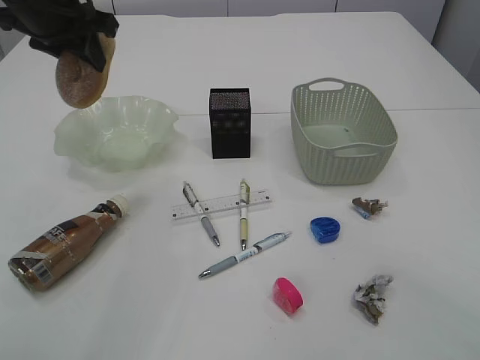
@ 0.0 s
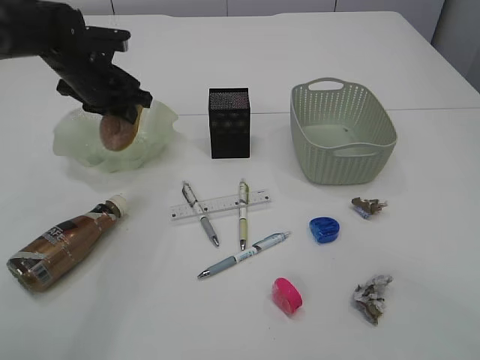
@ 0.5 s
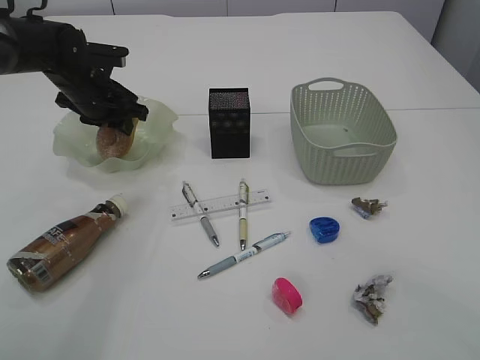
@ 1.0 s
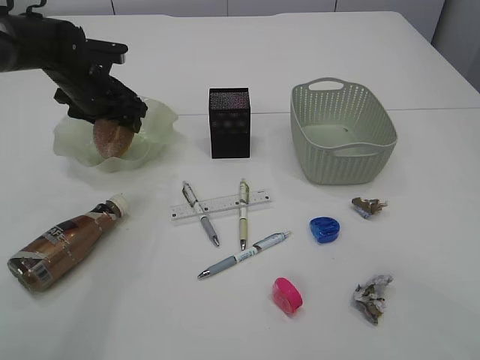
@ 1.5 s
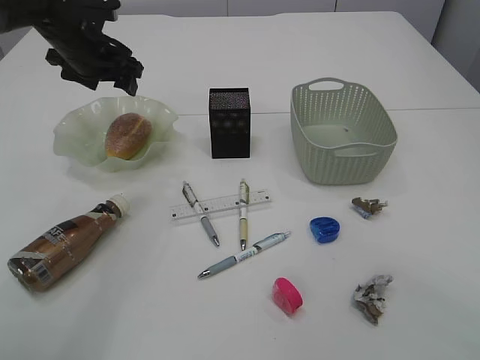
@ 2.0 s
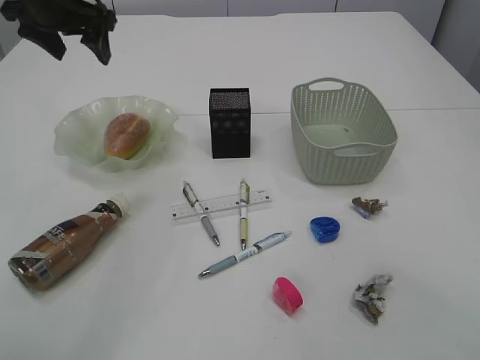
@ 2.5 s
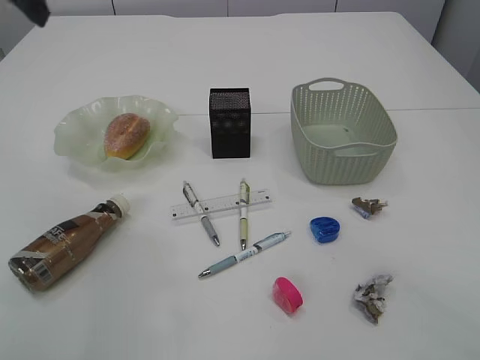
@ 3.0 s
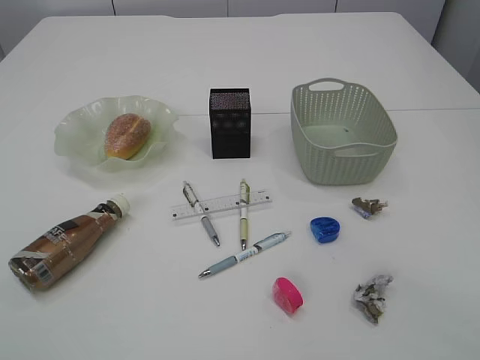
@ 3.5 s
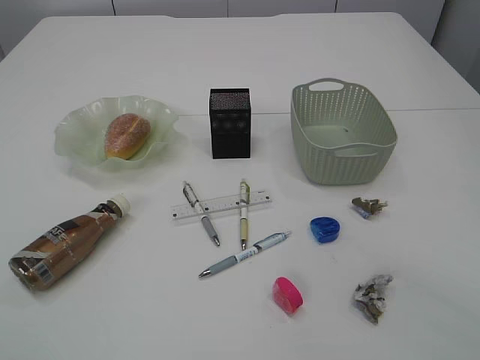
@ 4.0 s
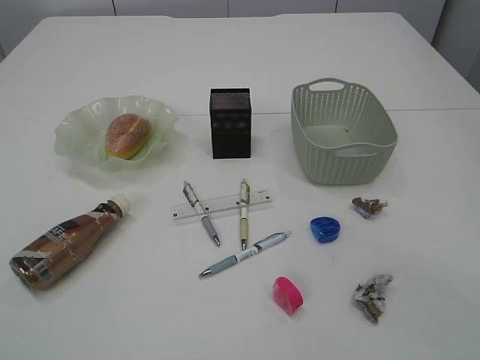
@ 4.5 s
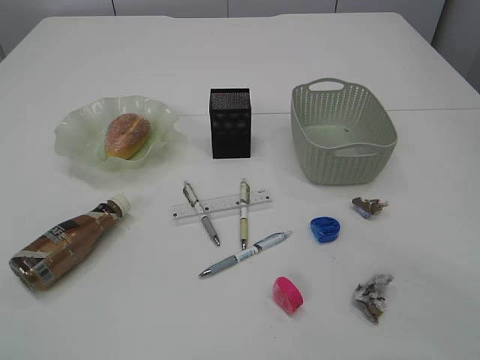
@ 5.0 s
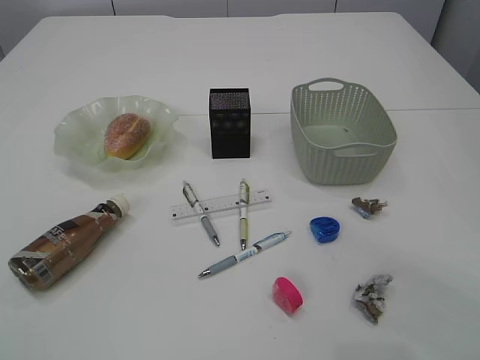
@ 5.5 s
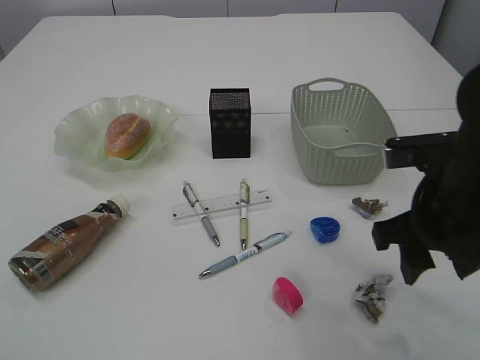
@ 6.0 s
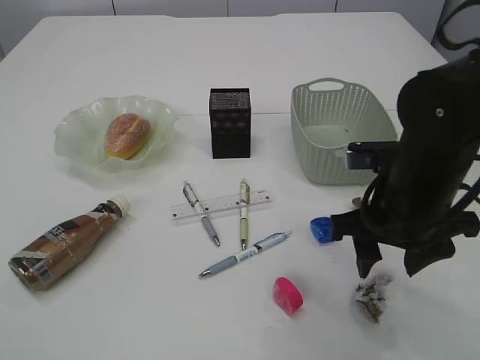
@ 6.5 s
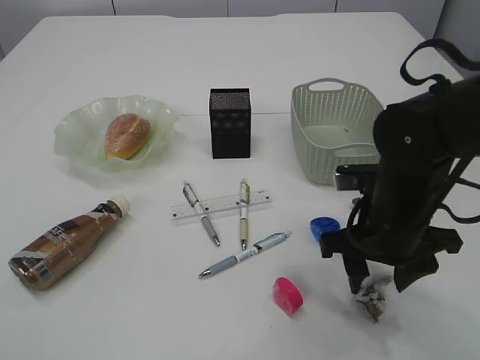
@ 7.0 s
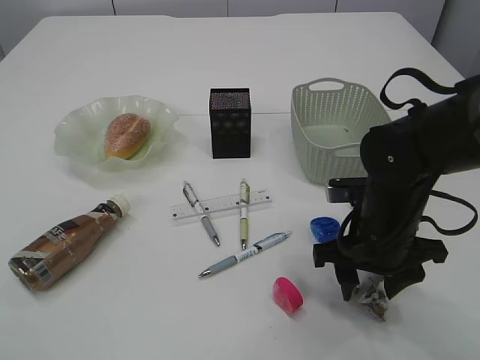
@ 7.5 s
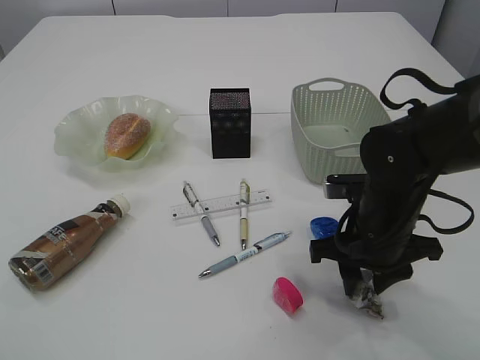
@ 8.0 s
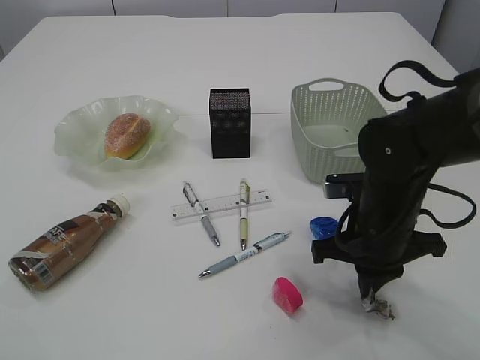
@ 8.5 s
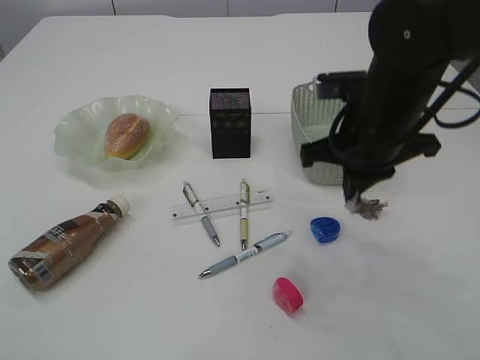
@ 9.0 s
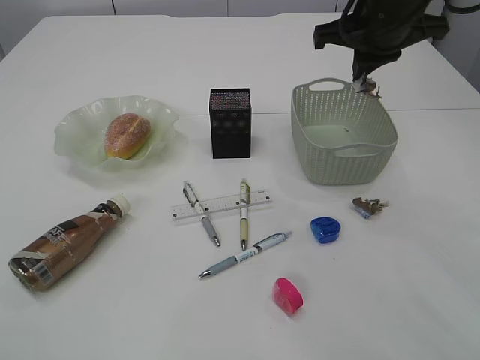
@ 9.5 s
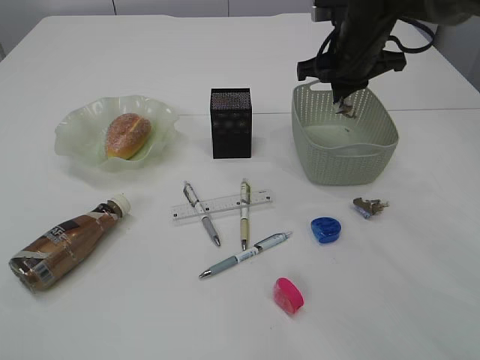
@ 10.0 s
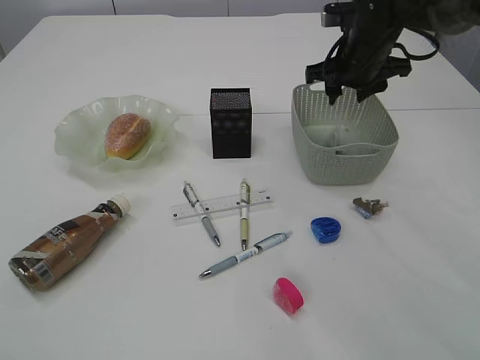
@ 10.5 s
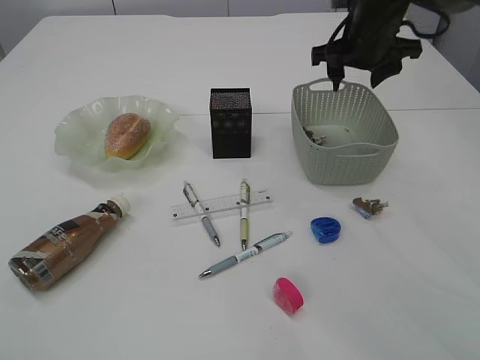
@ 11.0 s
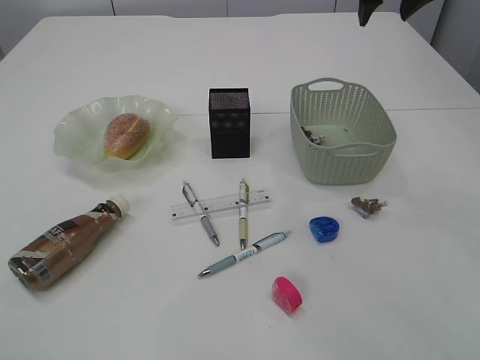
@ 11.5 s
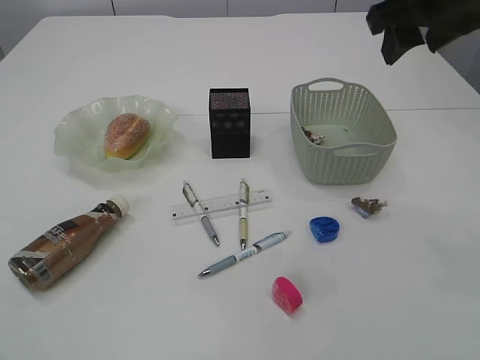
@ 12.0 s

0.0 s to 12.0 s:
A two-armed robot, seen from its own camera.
Step, 0.0 to 2.0 s: place the bread in the plate.
Step, 2.5 to 8.5 s: Pick up the waste paper.
Step, 9.0 to 10.5 s: Place the waste paper in the basket.
0.0 to 2.0 s: The left gripper heads downward and forward, covering approximately 15 cm, and opens up.
2.0 to 4.0 s: The left gripper travels backward by approximately 50 cm.
4.0 to 6.0 s: The right gripper travels to the left, downward and forward by some 15 cm.
6.0 to 8.0 s: The right gripper shifts some 10 cm downward and forward.
8.0 to 10.0 s: The right gripper heads forward and upward, covering about 20 cm, and closes its fingers.
10.0 to 12.0 s: The right gripper moves backward and upward, some 15 cm, and opens up.

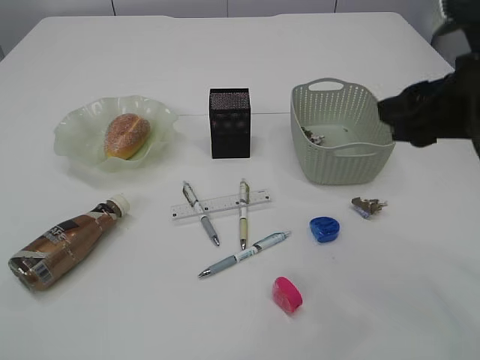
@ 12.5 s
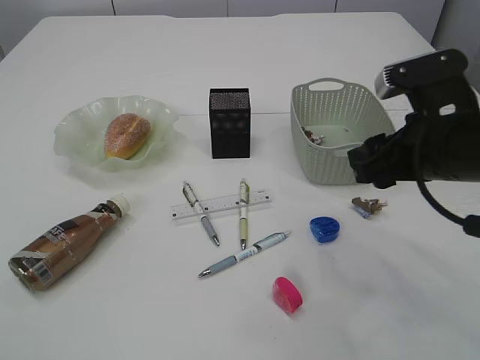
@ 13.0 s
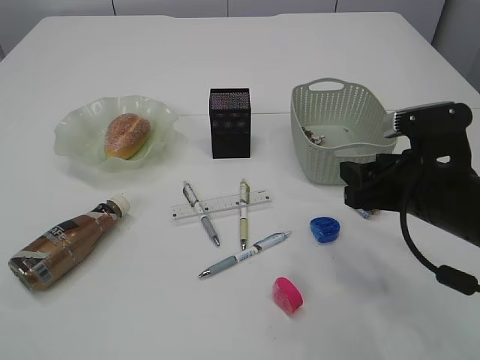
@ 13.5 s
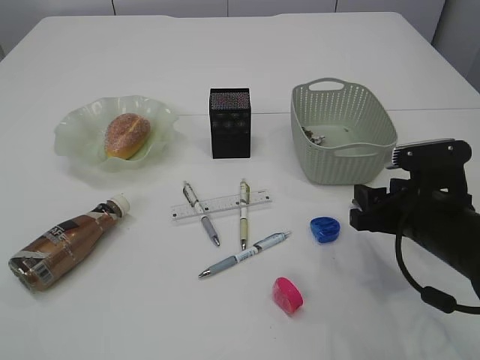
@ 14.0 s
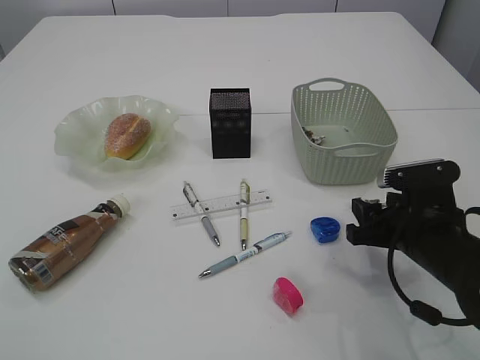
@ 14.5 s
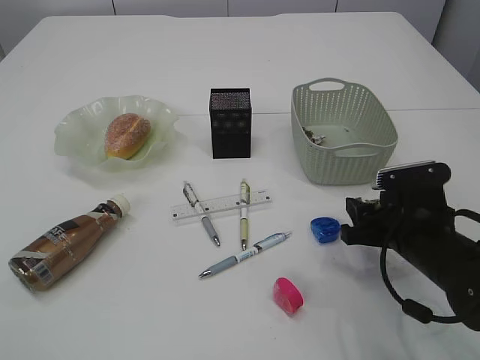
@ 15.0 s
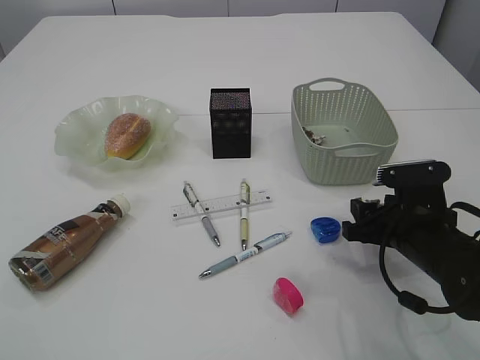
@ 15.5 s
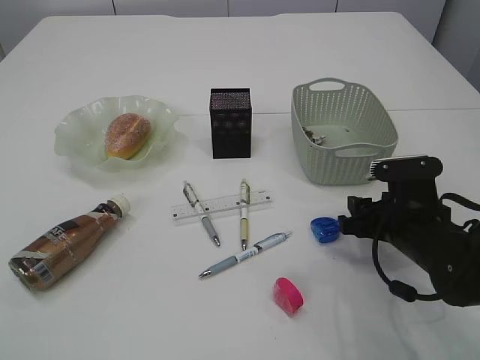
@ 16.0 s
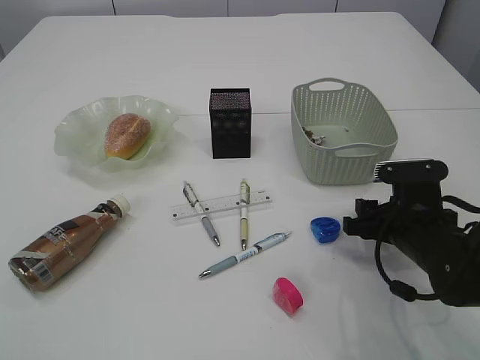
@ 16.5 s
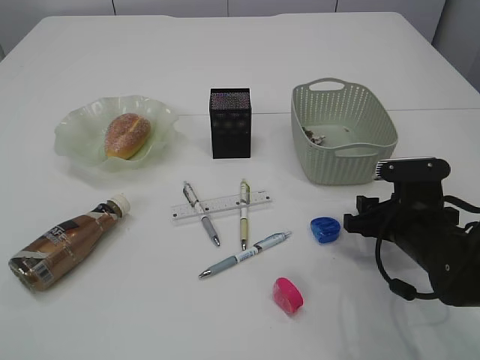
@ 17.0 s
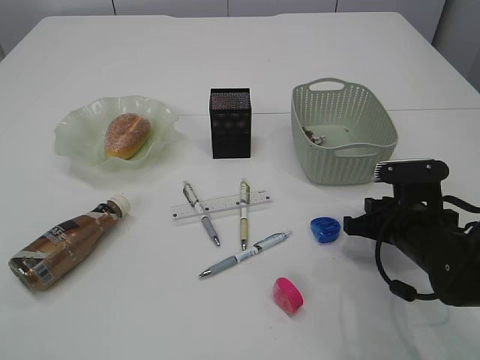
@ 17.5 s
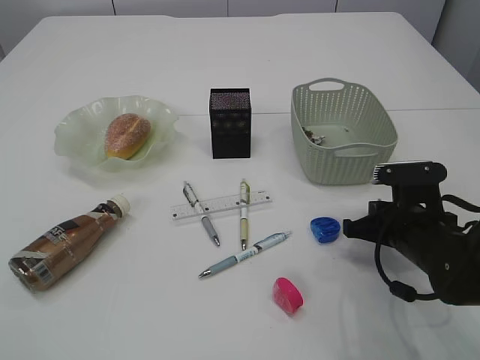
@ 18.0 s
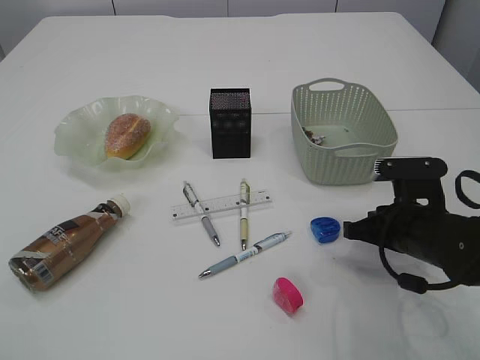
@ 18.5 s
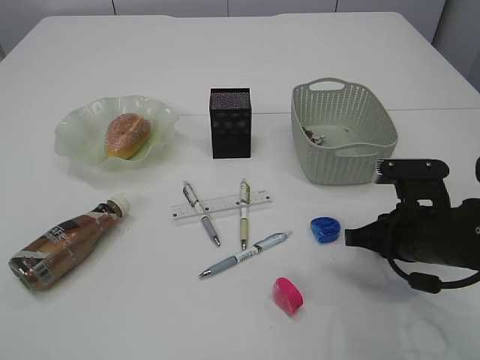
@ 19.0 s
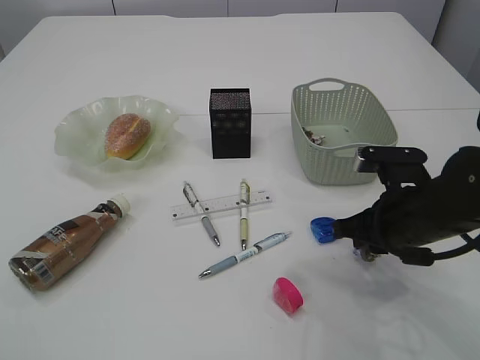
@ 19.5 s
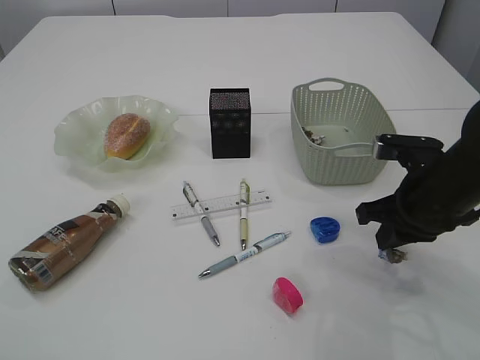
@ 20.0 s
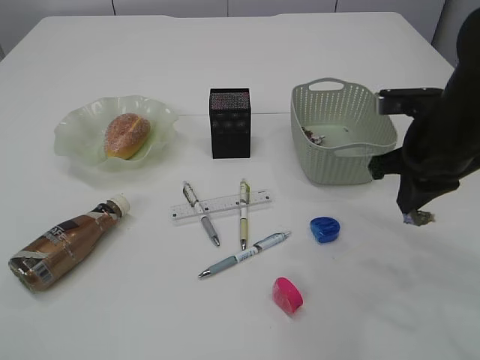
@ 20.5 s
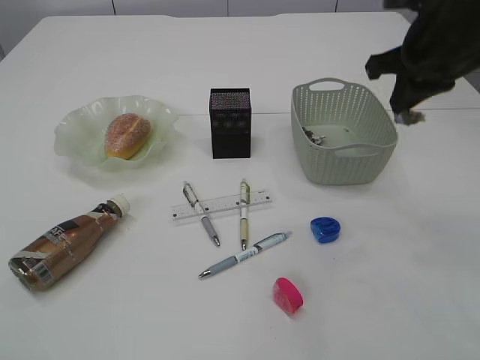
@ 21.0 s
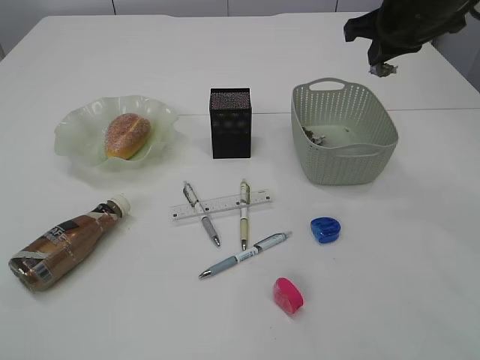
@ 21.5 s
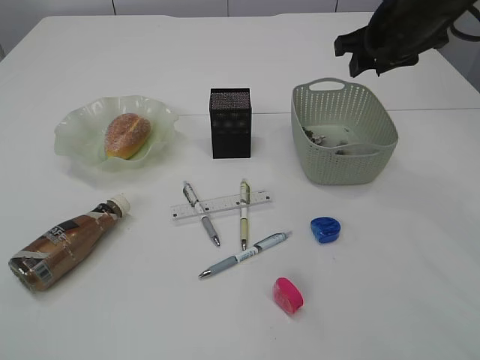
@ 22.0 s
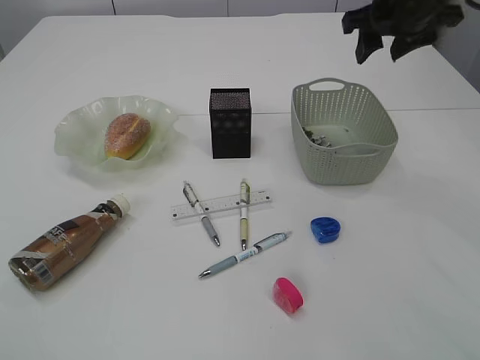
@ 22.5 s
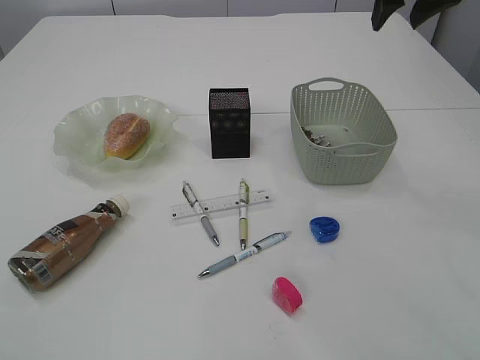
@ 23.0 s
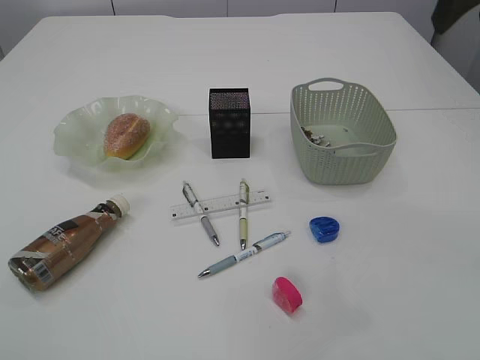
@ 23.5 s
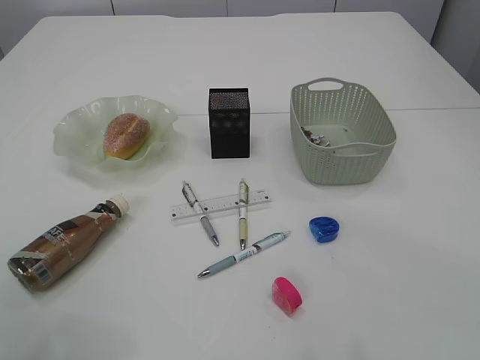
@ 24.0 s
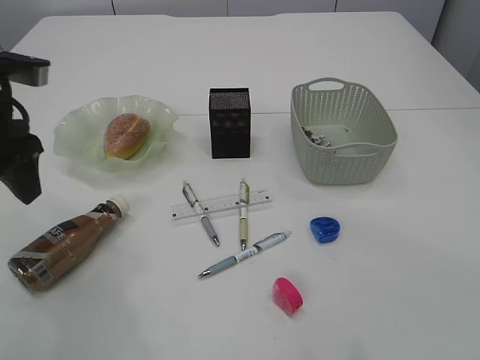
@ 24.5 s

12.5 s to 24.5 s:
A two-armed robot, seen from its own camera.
Step, 12.5 to 20.5 s: Pick up the waste paper.
Step, 21.0 to 22.5 s: Place the waste paper in the basket.
12.5 to 14.5 s: The right gripper is displaced downward by approximately 20 cm.
14.5 to 16.5 s: The grippers stay close to where they were, moving slightly.
16.5 to 18.5 s: The right gripper closes.
18.5 to 20.5 s: The right gripper goes about 10 cm upward.
20.5 to 22.5 s: The right gripper is displaced forward and upward by roughly 15 cm, and opens its fingers.
22.5 to 24.5 s: The left gripper goes about 25 cm forward; the right gripper heads backward and upward, covering about 25 cm.

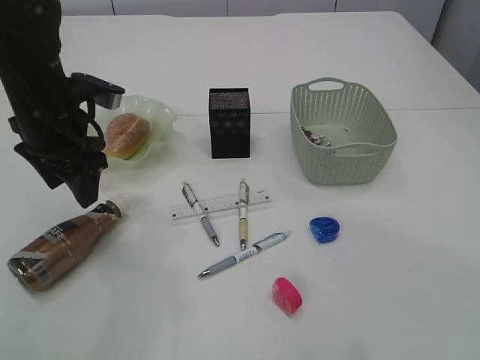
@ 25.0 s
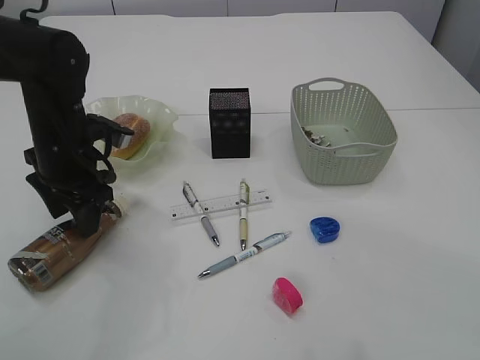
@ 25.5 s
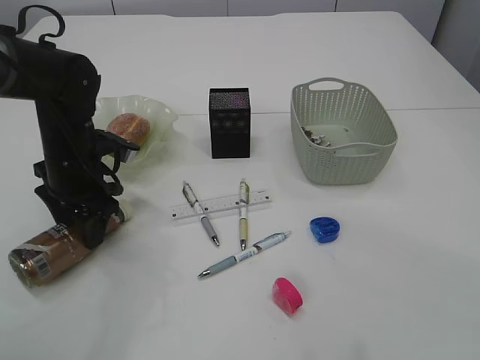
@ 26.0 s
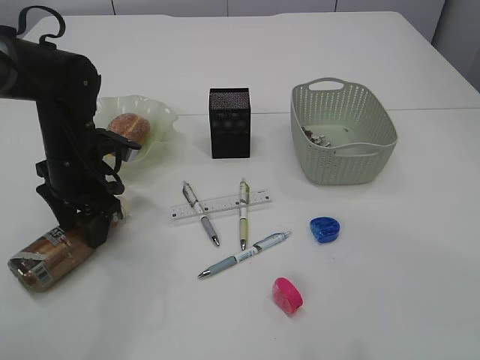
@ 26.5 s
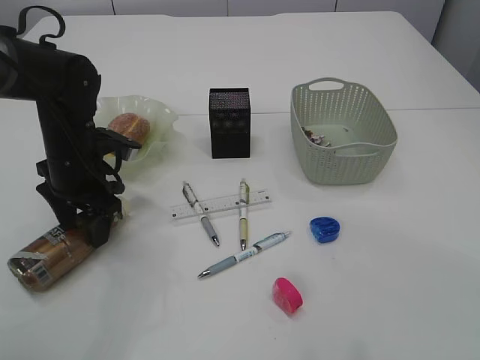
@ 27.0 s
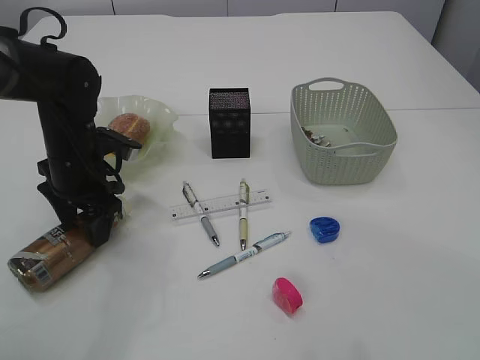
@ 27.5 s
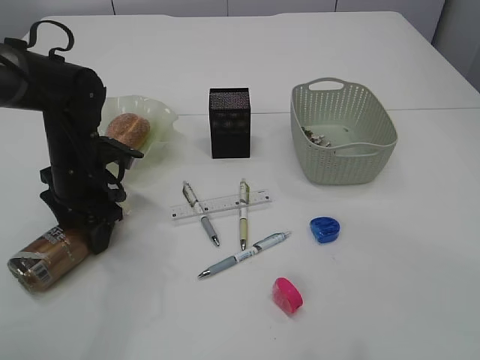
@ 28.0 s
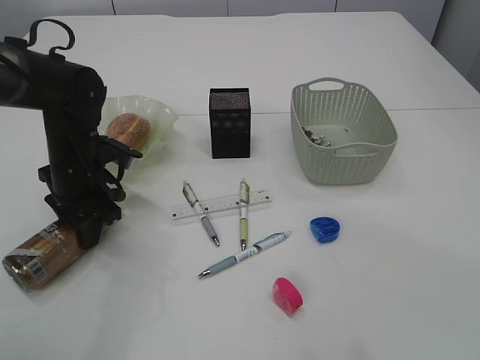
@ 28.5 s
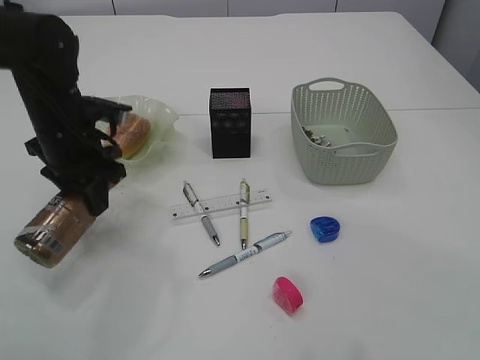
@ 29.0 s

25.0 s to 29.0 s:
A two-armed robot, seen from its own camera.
25.0 to 27.0 s: The left gripper goes approximately 10 cm downward.
27.0 to 29.0 s: The left gripper closes up.
